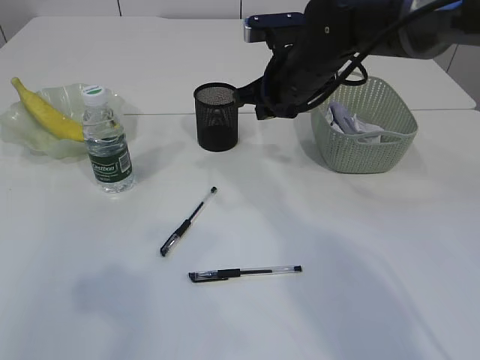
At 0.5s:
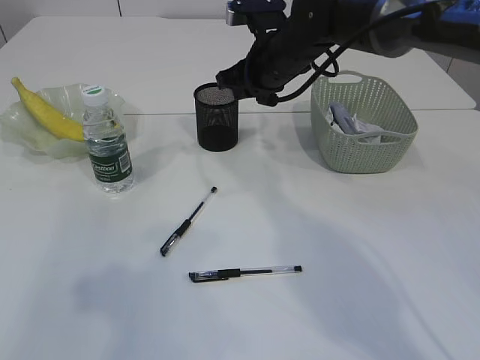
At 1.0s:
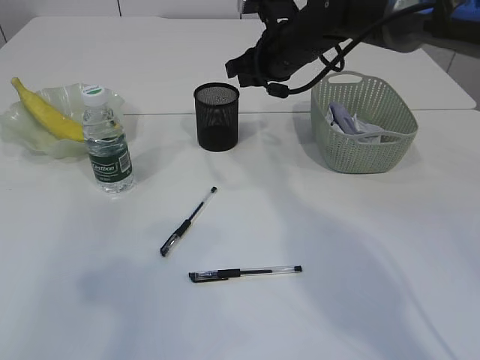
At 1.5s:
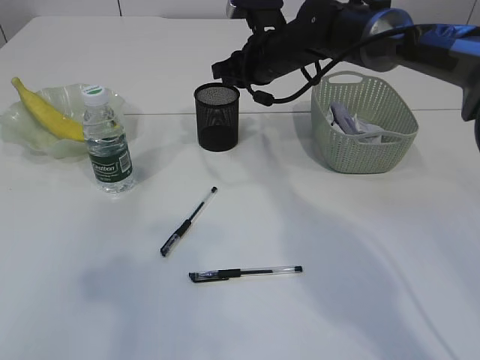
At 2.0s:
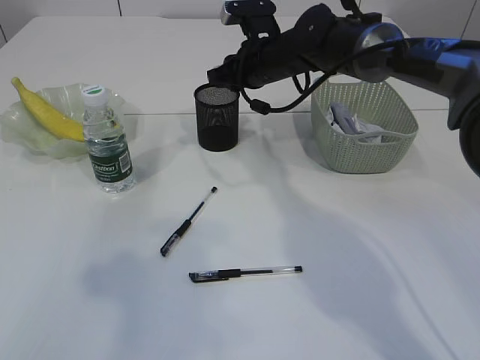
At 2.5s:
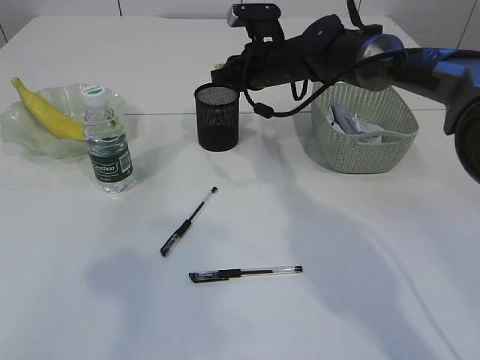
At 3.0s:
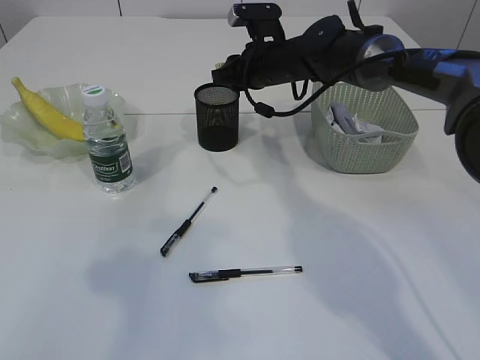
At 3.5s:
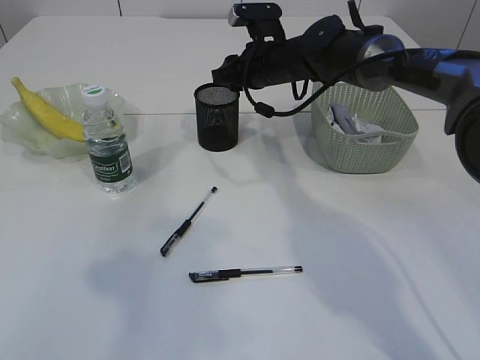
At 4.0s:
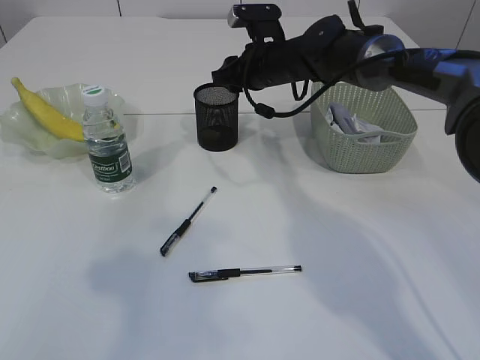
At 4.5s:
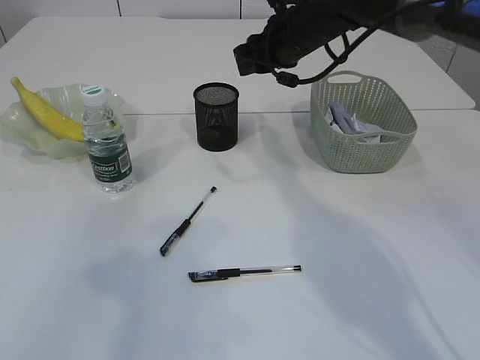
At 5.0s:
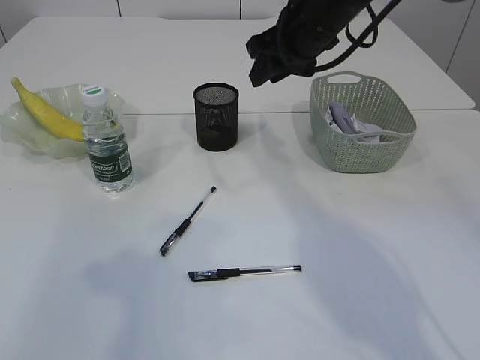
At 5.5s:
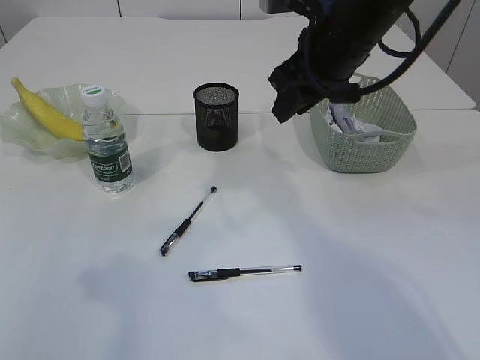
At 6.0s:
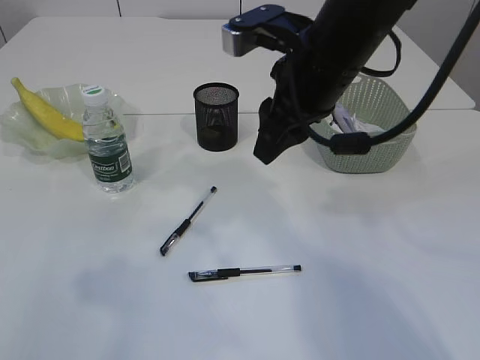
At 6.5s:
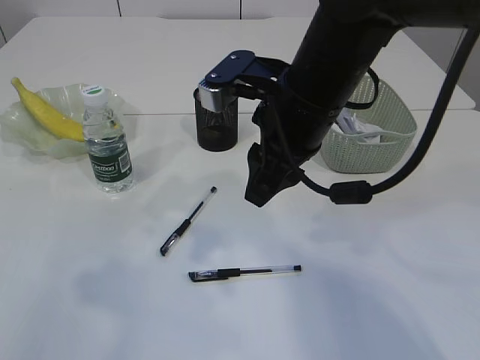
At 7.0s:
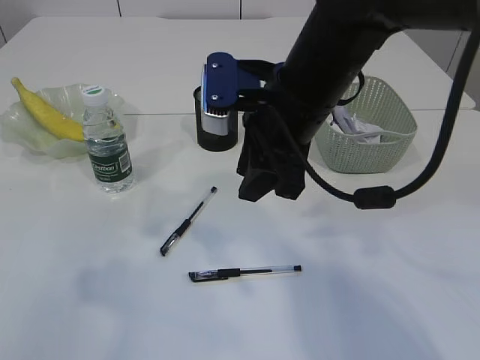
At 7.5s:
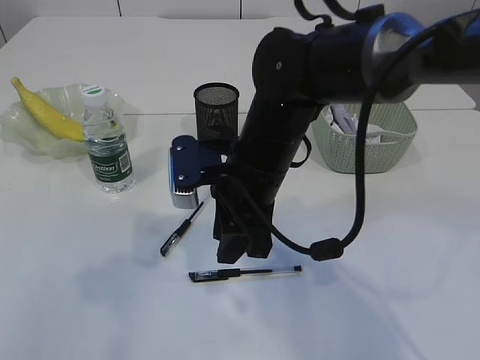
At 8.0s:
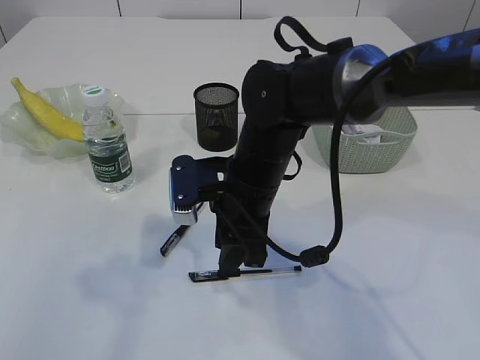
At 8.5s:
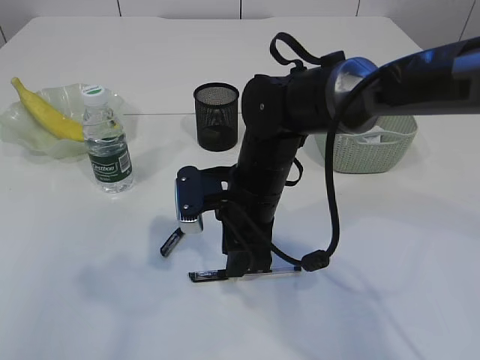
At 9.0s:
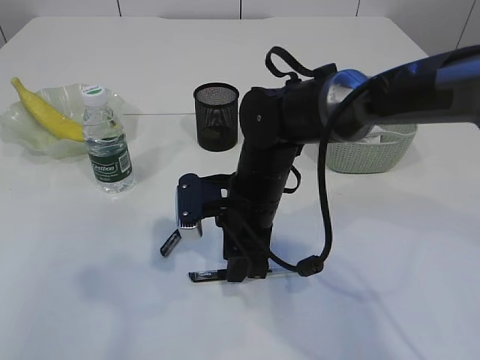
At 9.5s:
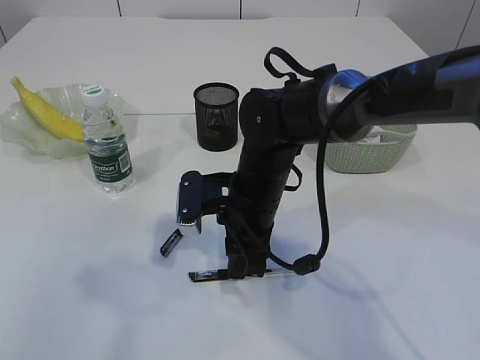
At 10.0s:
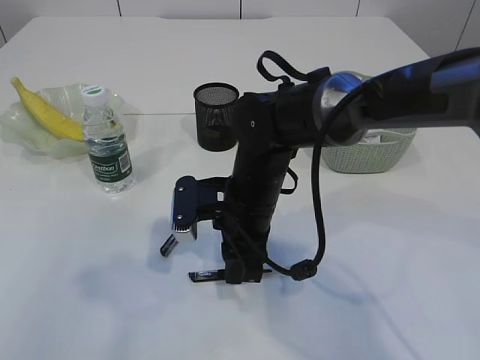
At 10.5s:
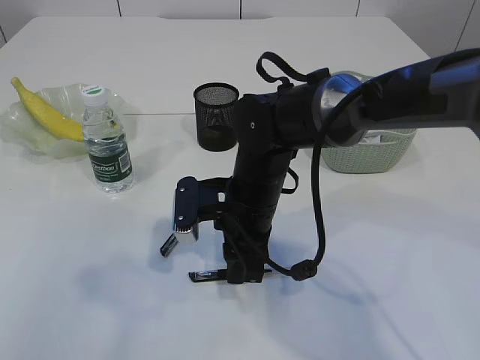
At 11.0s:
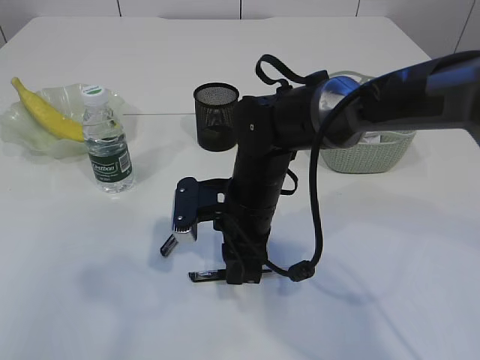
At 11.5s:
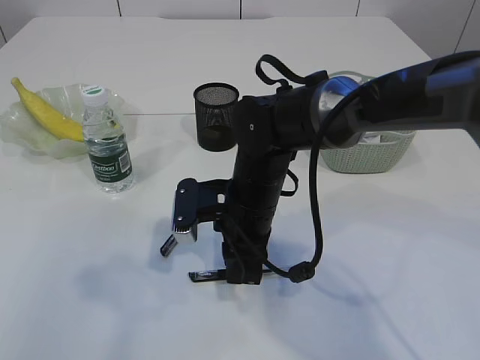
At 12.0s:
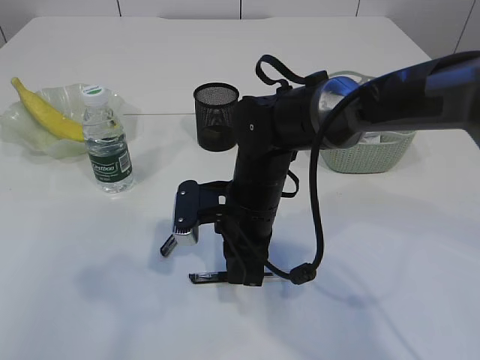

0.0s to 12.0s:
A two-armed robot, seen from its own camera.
Step, 0.0s to 4.5s: Place the eraser into the pen holder.
0.0s to 2.0s: The right gripper travels forward by about 10 cm.
2.0s to 4.0s: The grippers move only a little.
4.0s to 6.0s: The right gripper is displaced backward and upward by roughly 20 cm.
6.0s to 8.0s: The right gripper moves downward and to the left, some 15 cm.
8.0s to 10.0s: The grippers make only small movements.
10.0s to 12.0s: Both grippers stay put.

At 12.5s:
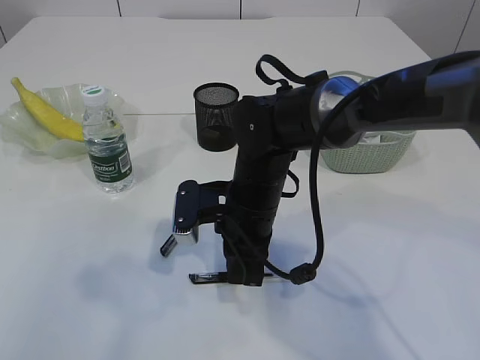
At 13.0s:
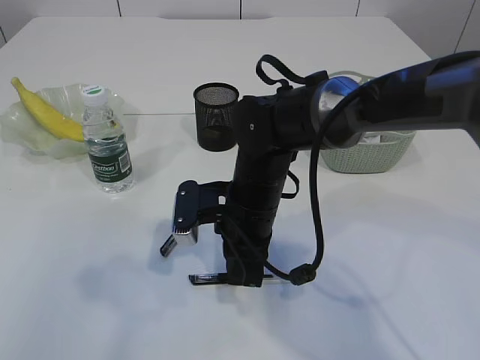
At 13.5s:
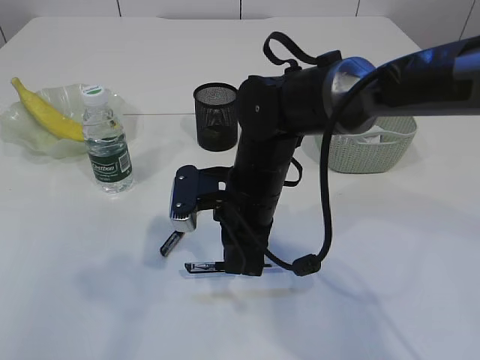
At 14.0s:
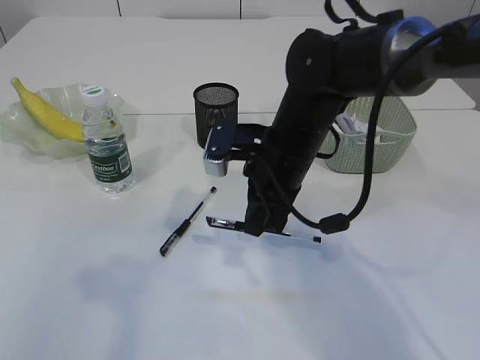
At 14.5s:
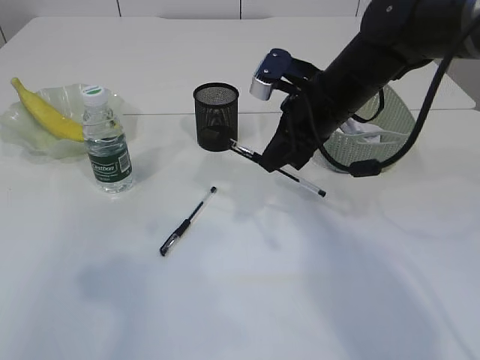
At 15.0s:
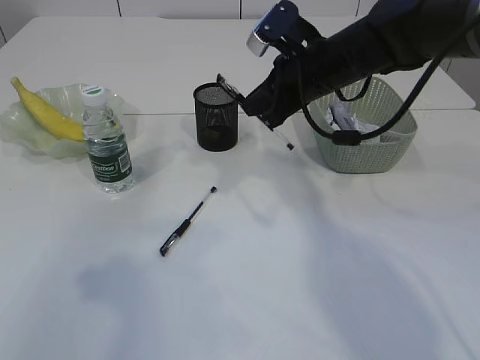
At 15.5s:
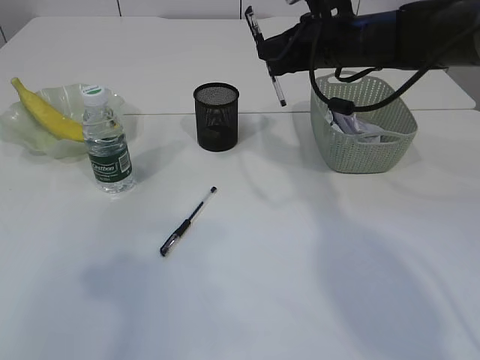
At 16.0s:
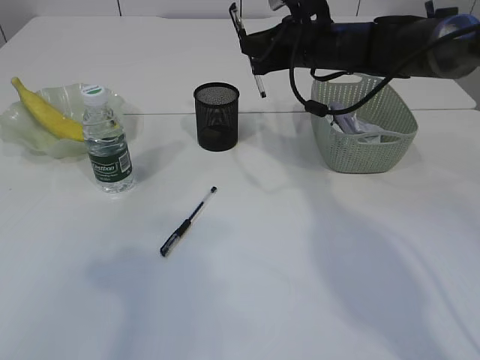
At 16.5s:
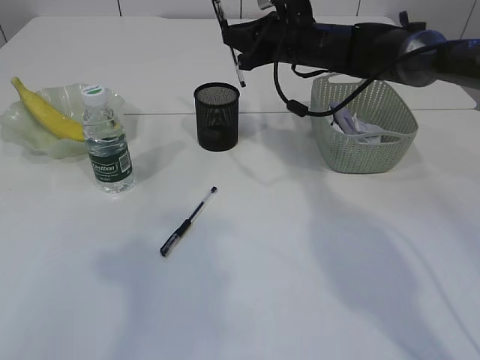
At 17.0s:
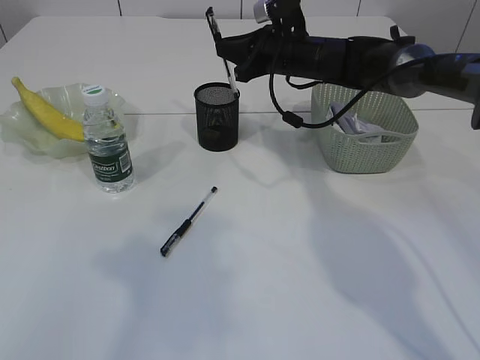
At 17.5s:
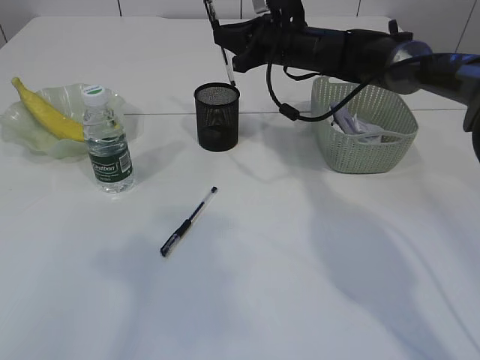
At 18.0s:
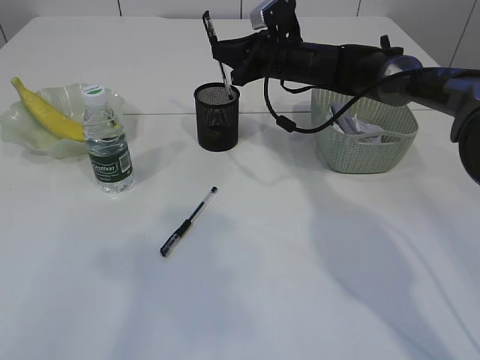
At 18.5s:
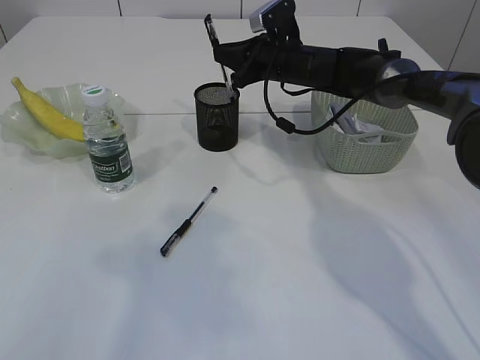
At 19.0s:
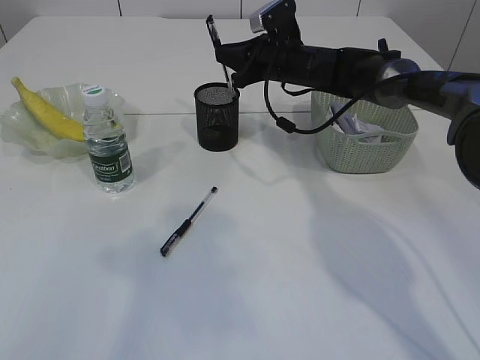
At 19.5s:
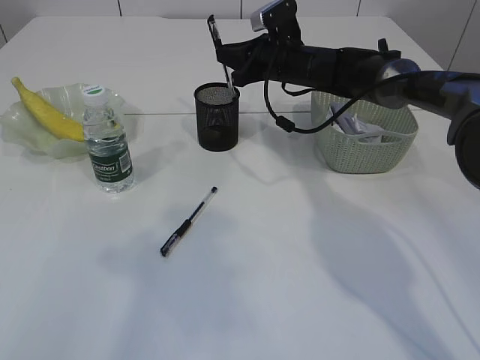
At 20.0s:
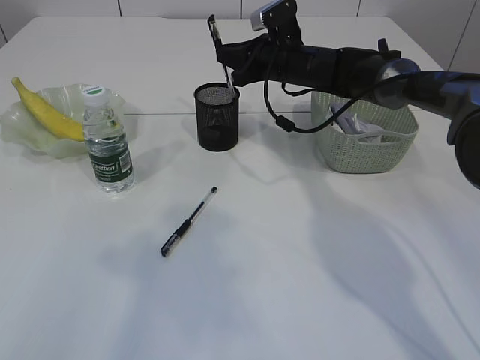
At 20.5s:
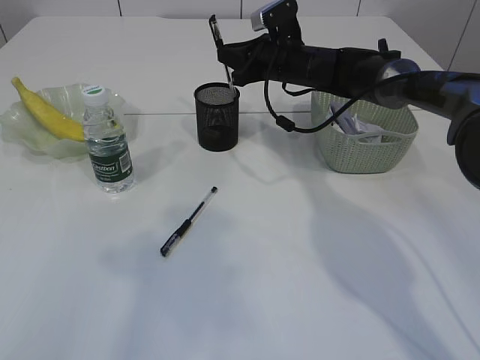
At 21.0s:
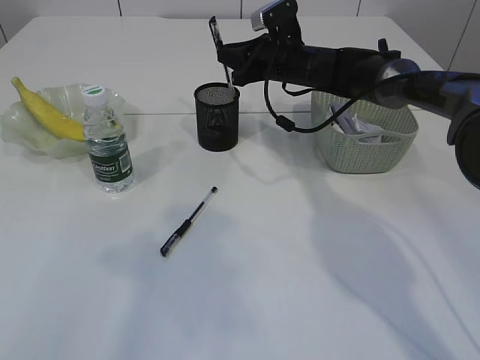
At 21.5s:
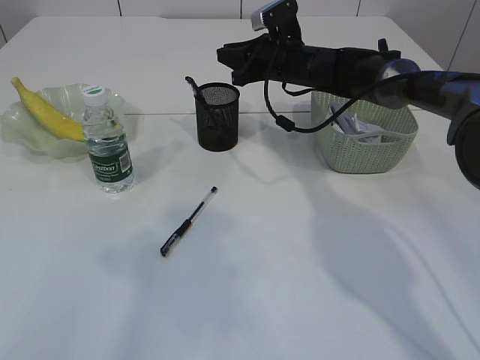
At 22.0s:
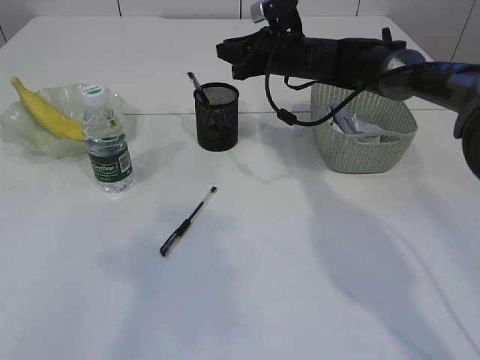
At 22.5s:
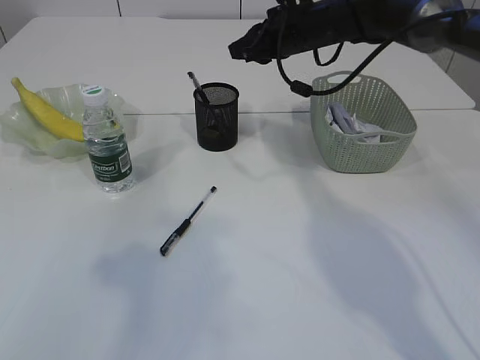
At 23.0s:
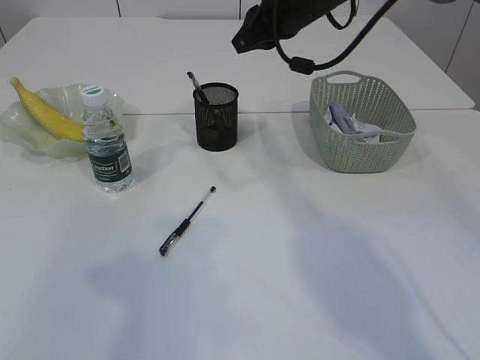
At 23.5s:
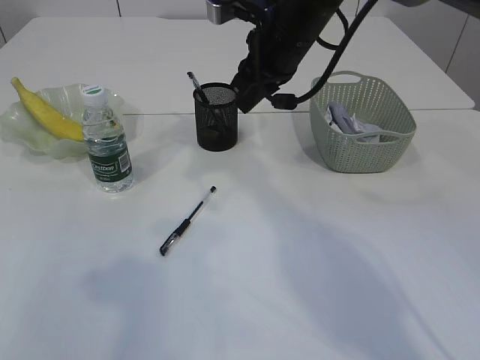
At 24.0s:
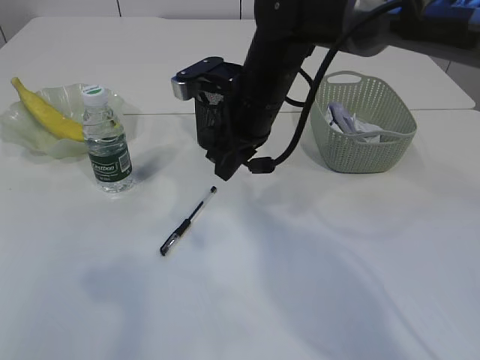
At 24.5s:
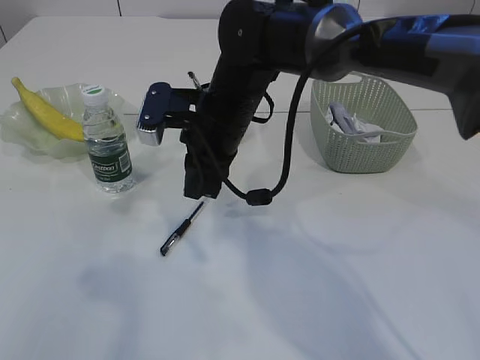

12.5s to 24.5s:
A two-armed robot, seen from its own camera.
Step, 14.0s to 22.0s: Place the pen into the pen holder.
12.5s to 14.5s: The right gripper heads to the right, upward and forward, covering about 15 cm.
14.5s to 16.5s: The right gripper heads forward, covering approximately 15 cm.
16.5s to 18.5s: The grippers make only small movements.
18.5s to 20.5s: The two grippers keep their place.
20.5s to 22.5s: The right gripper goes approximately 5 cm upward.
22.5s to 24.5s: The right gripper heads backward and to the left, covering about 20 cm.

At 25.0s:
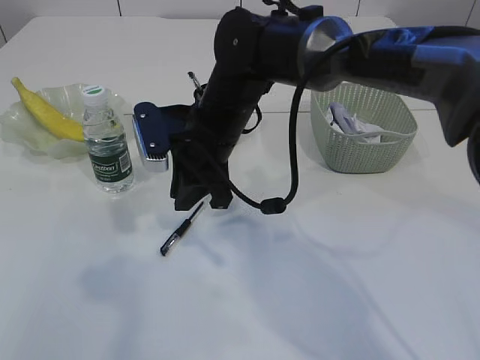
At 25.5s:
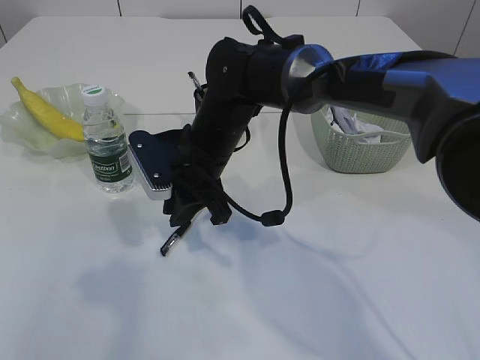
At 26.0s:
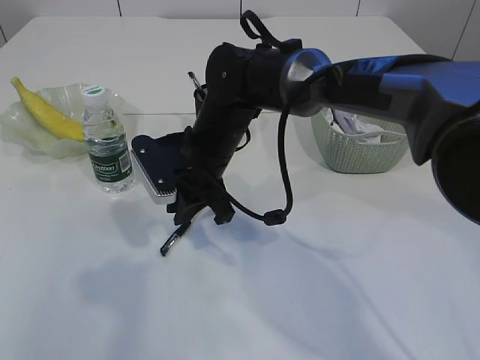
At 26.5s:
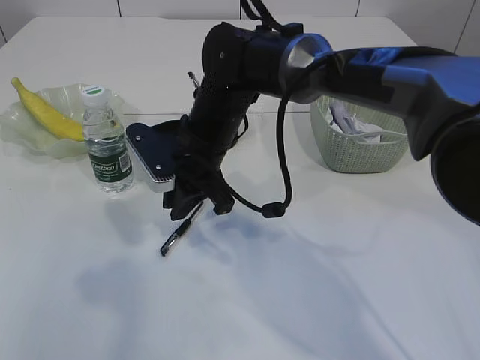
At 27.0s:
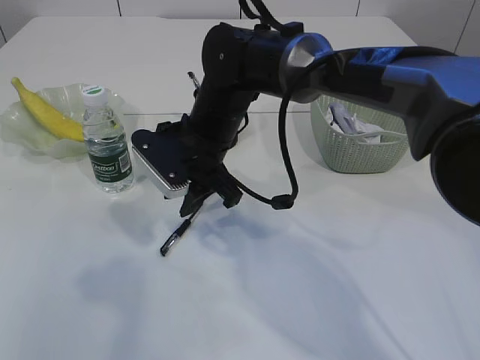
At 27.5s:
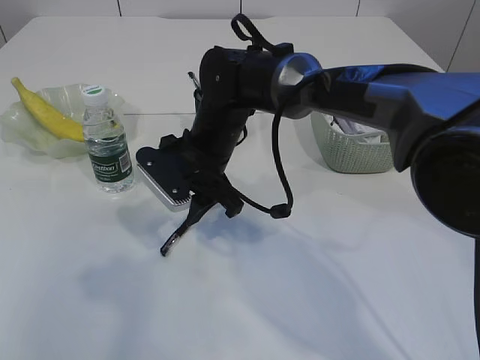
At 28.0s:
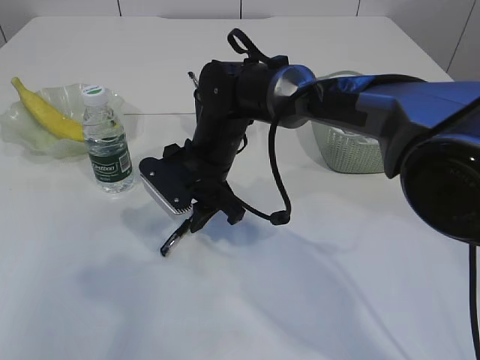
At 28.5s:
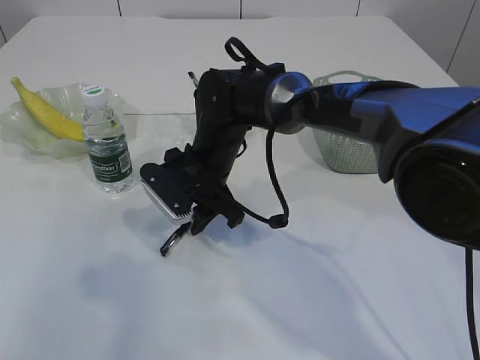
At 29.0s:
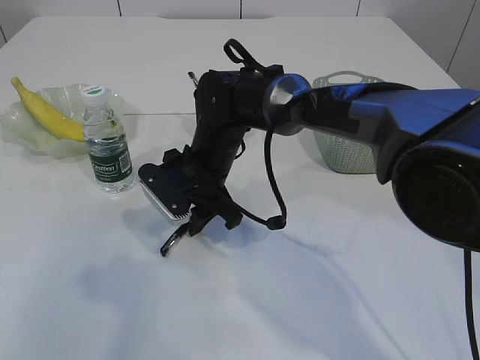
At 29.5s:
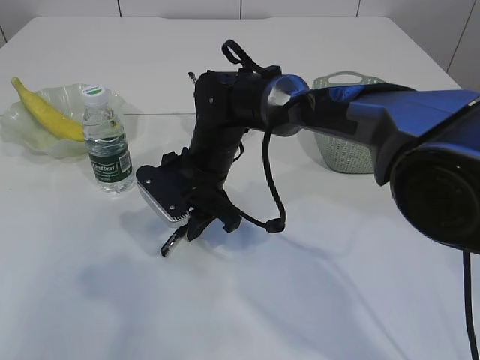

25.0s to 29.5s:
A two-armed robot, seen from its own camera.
27.0s to 29.5s: The right gripper moves downward, roughly 5 cm.
